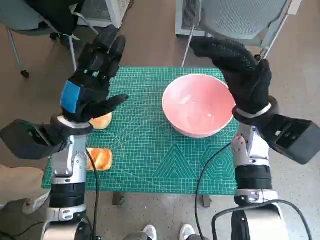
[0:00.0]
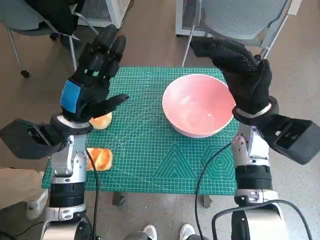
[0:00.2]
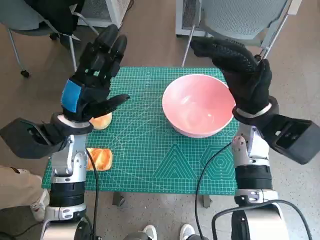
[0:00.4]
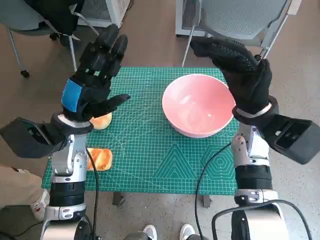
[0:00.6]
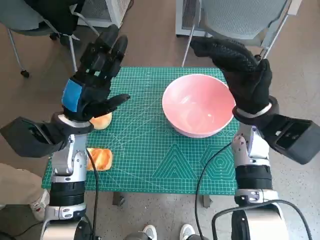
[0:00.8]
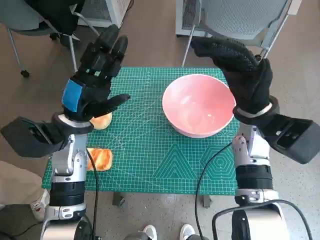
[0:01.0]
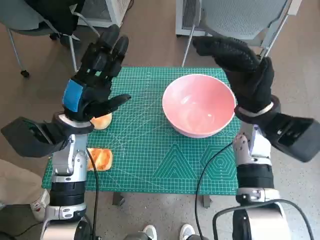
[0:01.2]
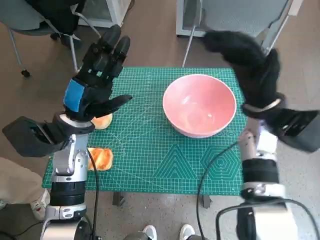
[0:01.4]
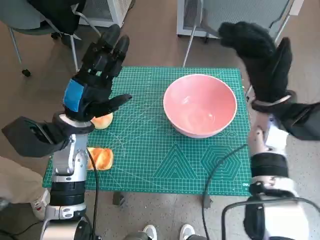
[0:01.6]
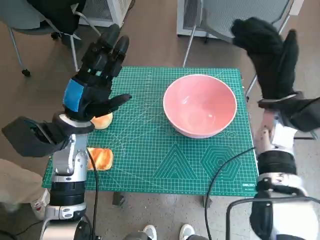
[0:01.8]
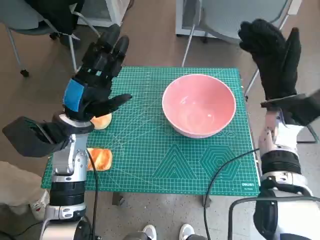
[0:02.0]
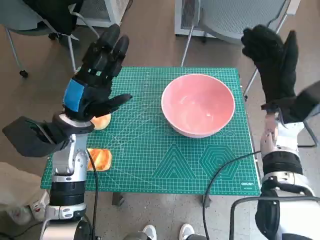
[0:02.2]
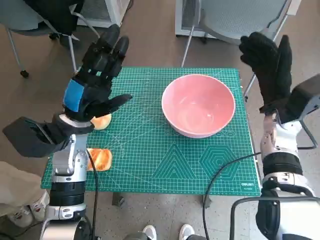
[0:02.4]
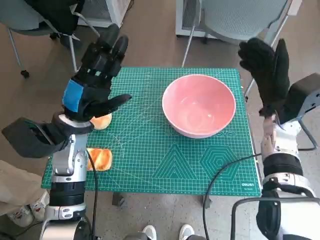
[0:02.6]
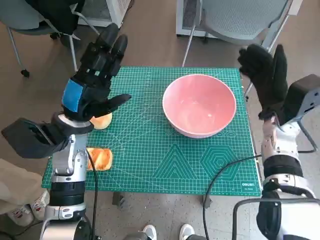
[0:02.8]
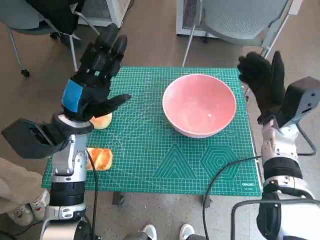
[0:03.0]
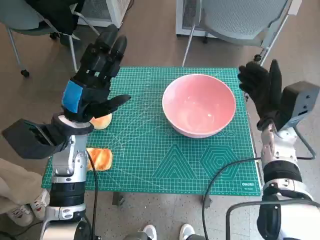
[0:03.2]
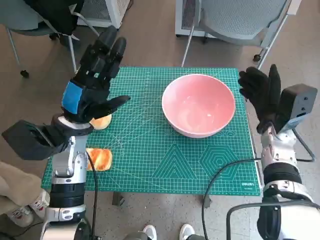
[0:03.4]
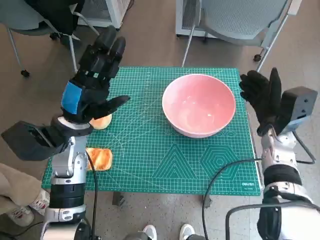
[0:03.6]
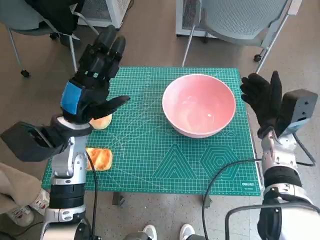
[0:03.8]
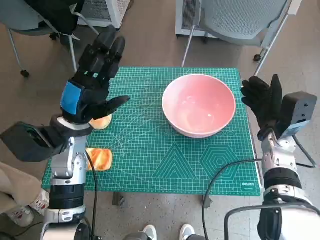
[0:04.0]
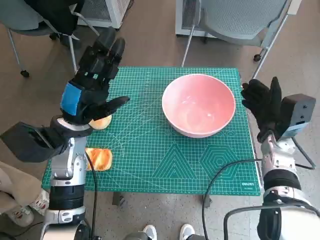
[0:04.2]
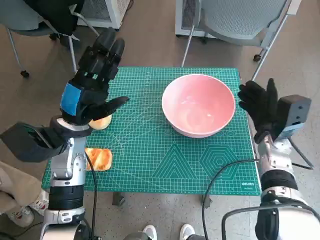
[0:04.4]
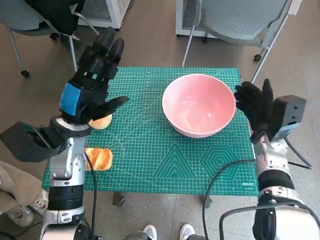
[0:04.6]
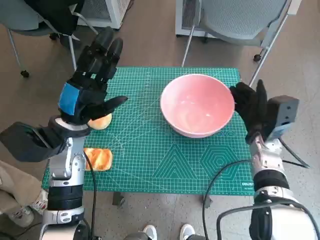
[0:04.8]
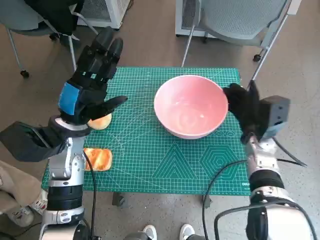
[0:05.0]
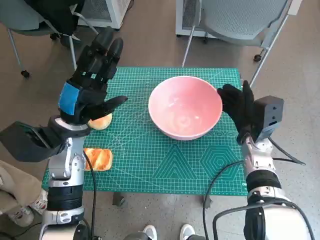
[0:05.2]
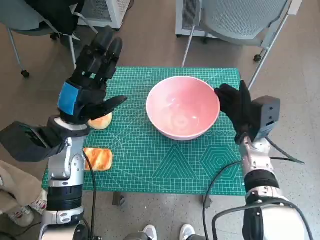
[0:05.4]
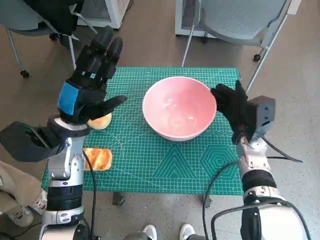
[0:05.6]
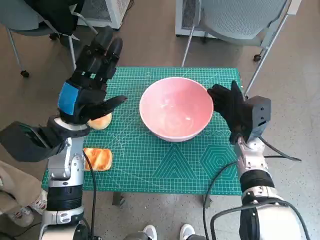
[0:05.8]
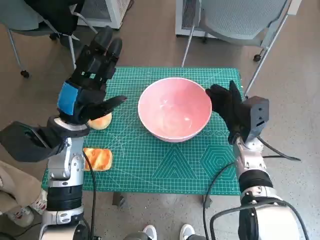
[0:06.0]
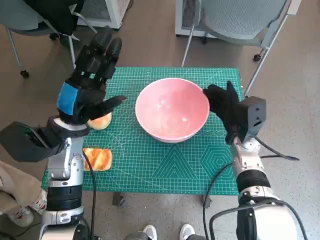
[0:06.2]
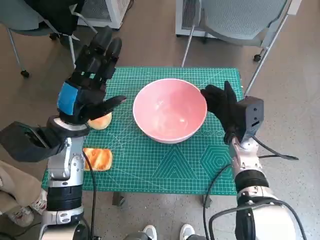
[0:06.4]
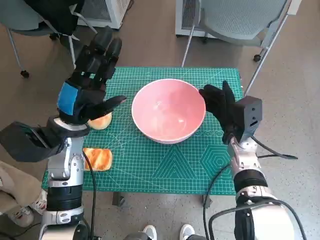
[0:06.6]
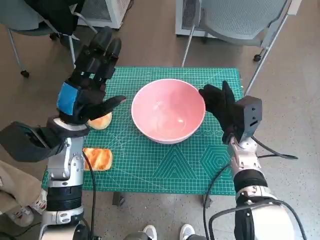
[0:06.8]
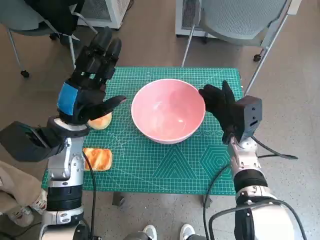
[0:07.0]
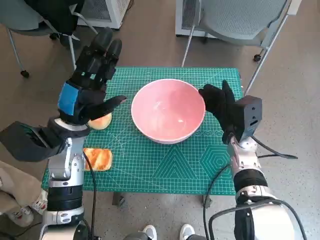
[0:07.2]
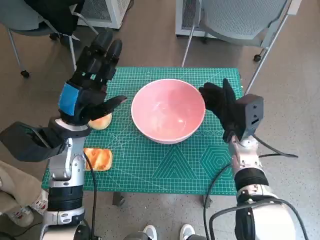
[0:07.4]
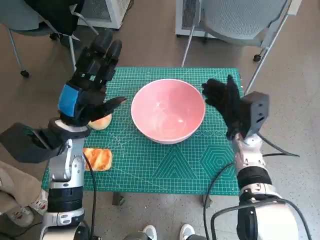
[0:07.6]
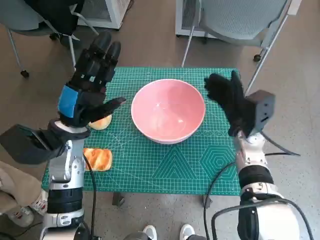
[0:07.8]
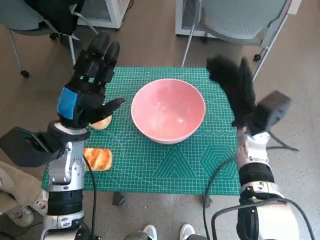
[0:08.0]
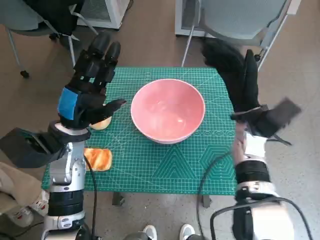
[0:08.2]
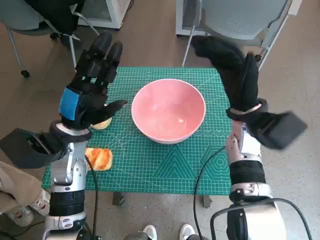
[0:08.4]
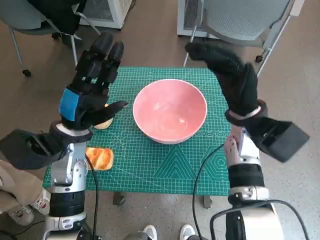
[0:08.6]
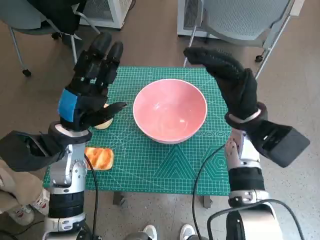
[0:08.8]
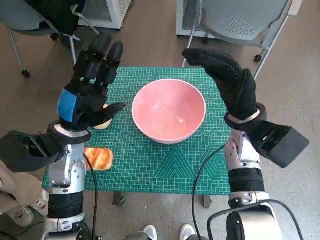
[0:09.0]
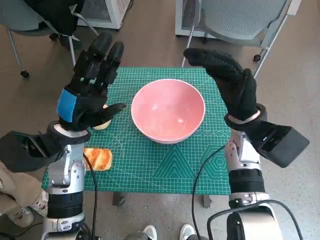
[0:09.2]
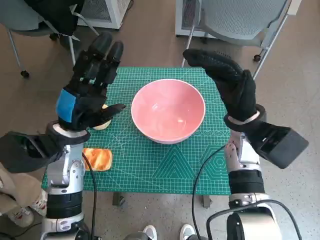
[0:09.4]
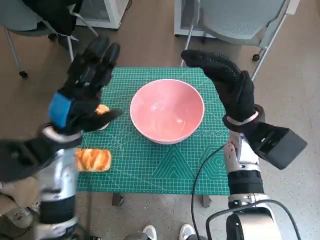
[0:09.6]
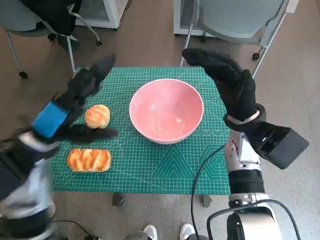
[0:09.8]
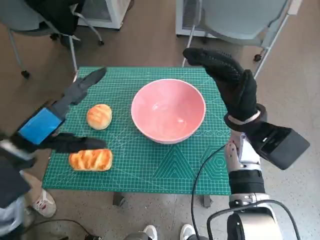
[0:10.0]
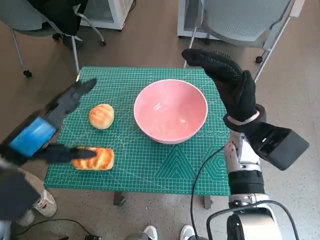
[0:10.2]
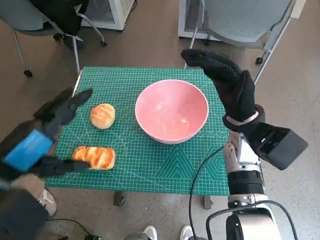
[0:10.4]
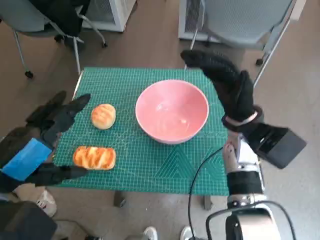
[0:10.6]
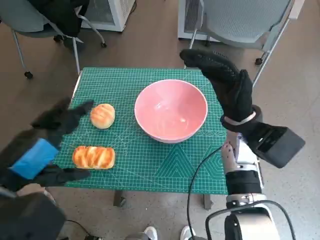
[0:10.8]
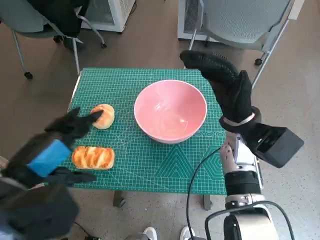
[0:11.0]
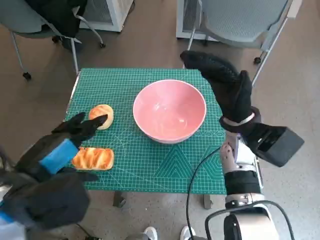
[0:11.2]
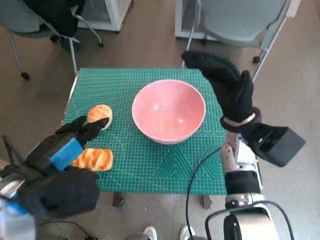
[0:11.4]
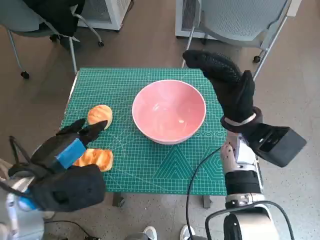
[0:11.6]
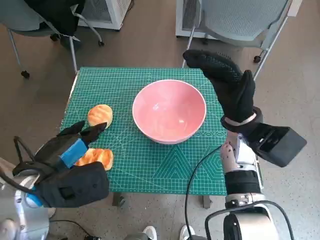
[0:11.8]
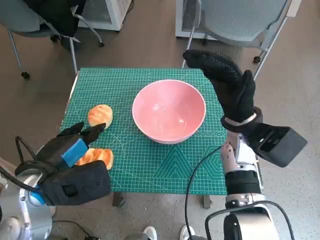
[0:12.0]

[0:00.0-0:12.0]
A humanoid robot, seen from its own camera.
Step, 0:00.0 to 0:07.6: Move the pink bowl to the center of table with right hand.
0:01.6 to 0:03.0: The right hand heads downward, covering some 5 cm.
0:03.0 to 0:04.4: The hands make only small movements.
0:04.4 to 0:06.0: The right hand shifts roughly 5 cm to the left.
0:06.0 to 0:07.6: Both hands stay put.
0:07.6 to 0:09.0: The right hand heads upward, covering approximately 10 cm.
0:09.0 to 0:10.4: The left hand moves backward and upward, some 15 cm.
0:10.4 to 0:12.0: The left hand ends up approximately 5 cm from where it was.

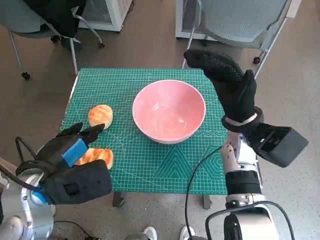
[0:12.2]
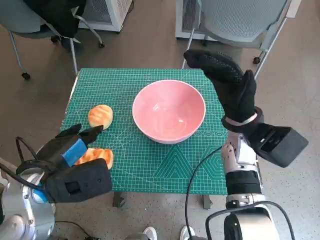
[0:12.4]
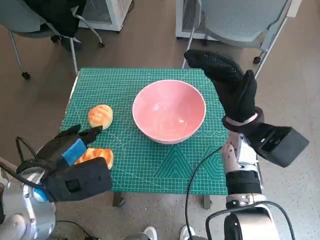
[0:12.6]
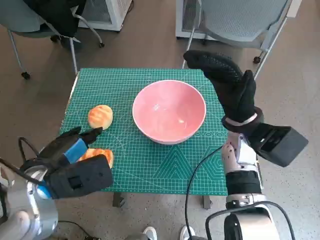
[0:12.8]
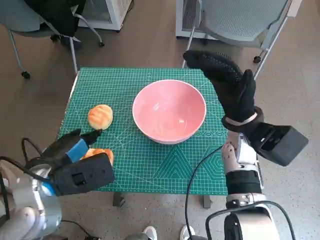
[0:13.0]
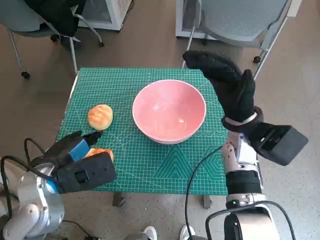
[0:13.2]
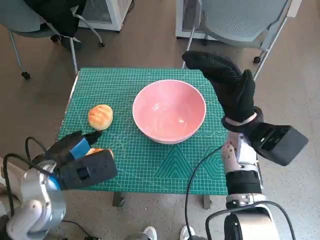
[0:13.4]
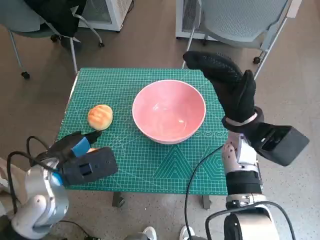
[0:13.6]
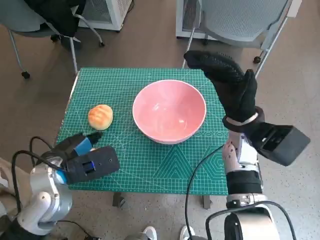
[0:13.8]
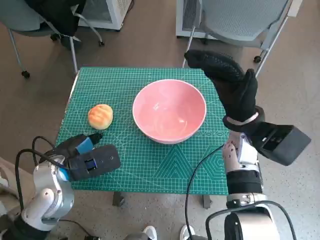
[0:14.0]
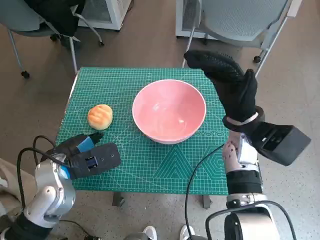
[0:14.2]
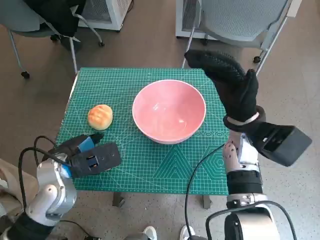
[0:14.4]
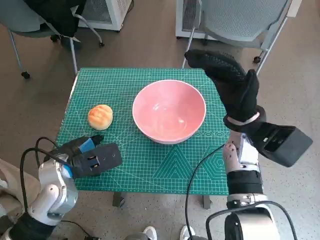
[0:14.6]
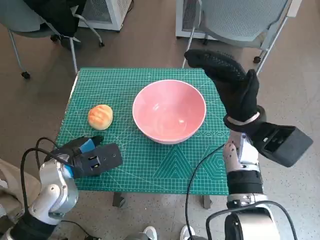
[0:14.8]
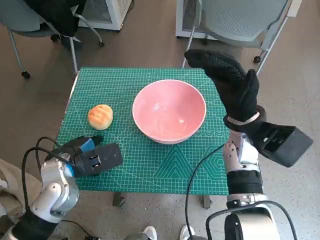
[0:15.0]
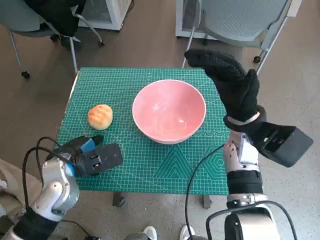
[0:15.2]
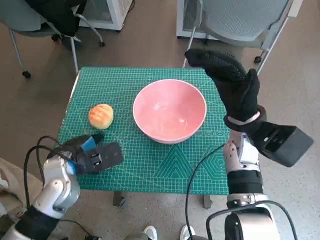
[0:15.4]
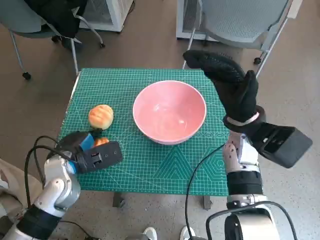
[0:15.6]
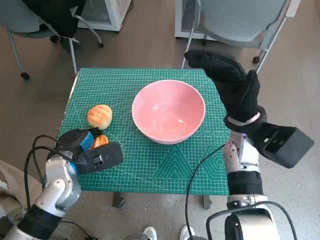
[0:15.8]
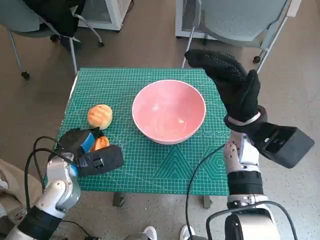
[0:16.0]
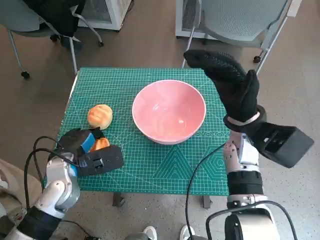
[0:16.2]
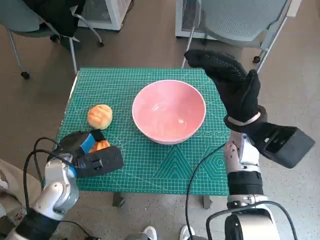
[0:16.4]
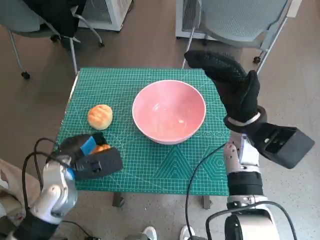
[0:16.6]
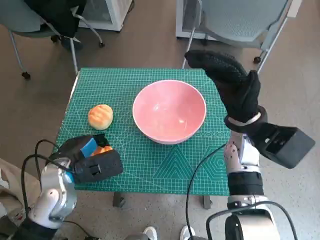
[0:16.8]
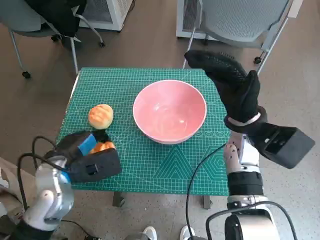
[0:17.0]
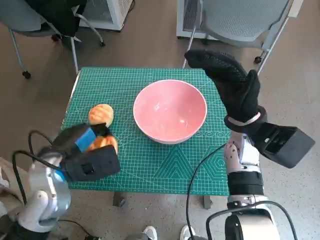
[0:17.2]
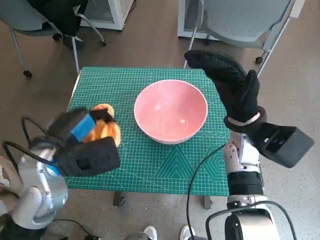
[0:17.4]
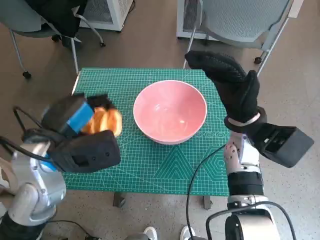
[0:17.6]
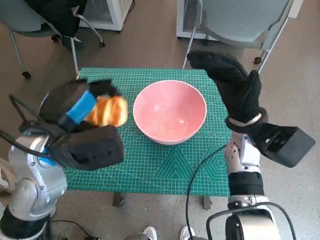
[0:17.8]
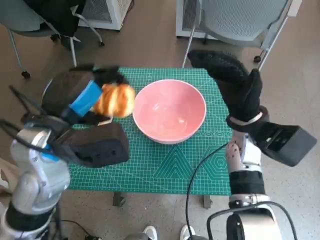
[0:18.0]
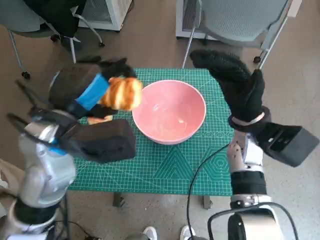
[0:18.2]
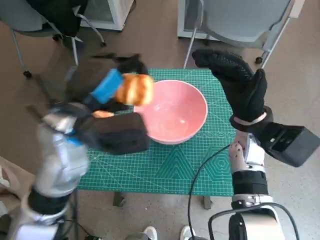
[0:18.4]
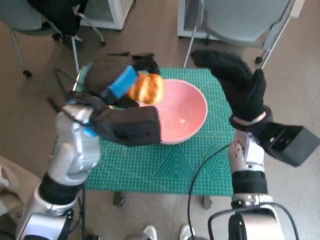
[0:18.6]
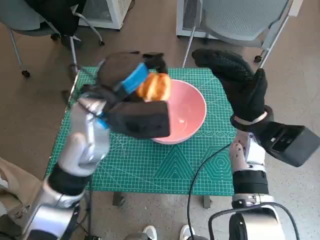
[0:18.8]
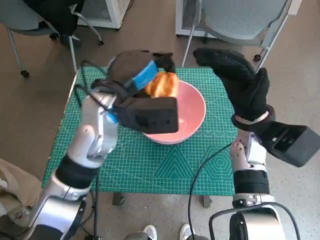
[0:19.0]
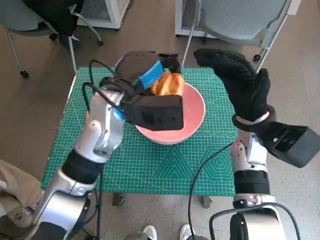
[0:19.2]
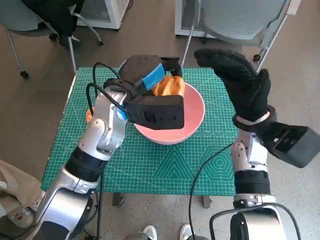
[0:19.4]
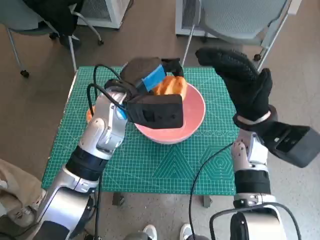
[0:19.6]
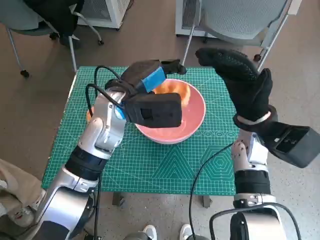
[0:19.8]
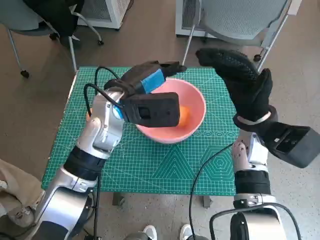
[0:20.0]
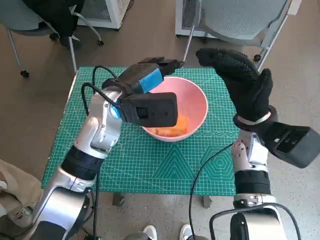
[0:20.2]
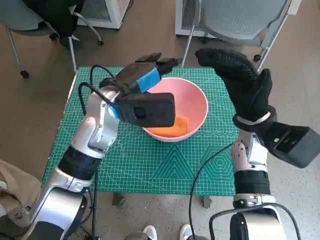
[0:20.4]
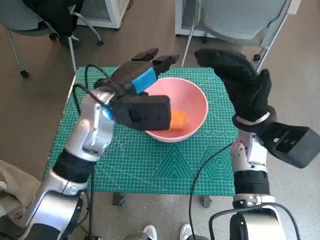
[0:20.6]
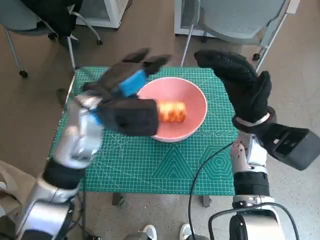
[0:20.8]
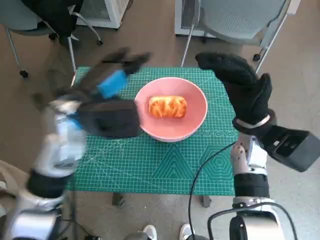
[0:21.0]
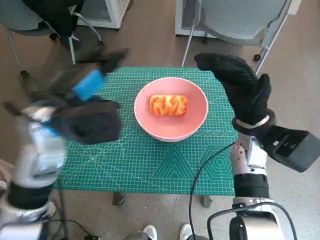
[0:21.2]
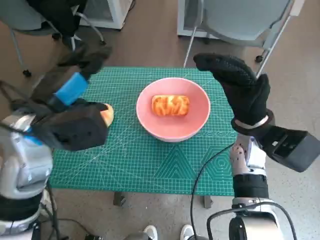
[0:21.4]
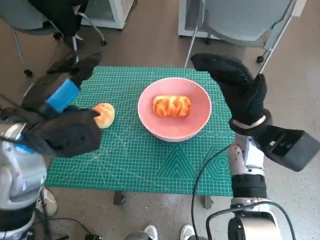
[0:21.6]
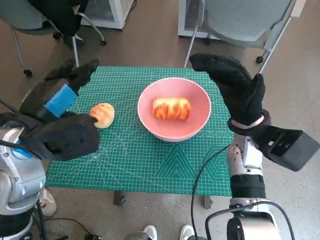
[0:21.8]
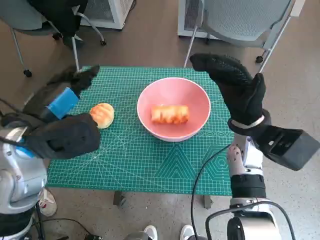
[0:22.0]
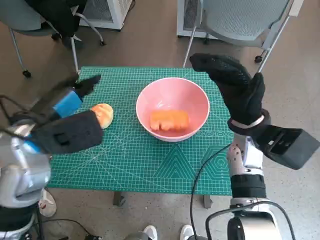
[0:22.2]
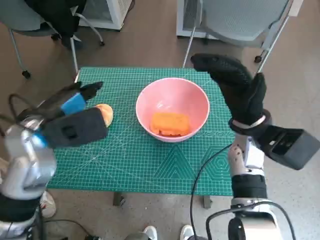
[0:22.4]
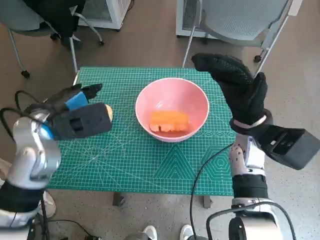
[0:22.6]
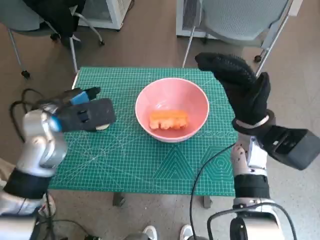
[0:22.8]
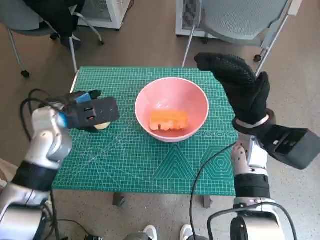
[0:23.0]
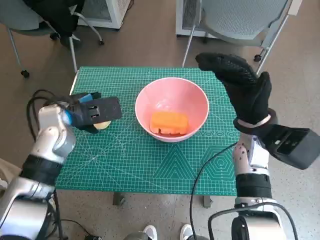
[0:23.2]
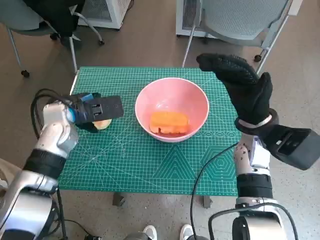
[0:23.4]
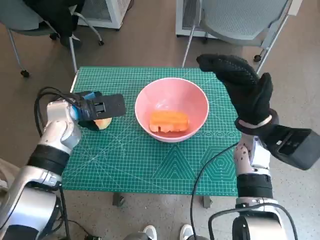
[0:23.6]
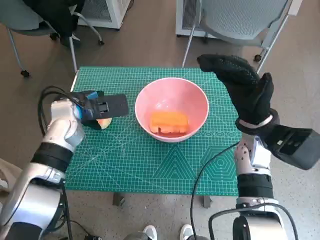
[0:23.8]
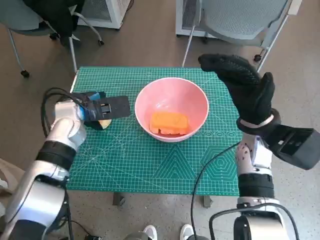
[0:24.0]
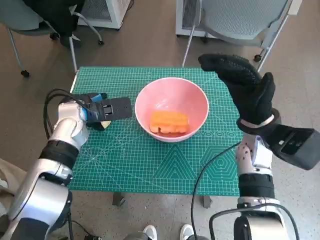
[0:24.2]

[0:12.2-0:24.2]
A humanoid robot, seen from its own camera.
Step, 0:12.2 to 0:15.8: Grasp the long bread with left hand.
Step, 0:16.0 to 0:20.0: Place the long bread in pink bowl with left hand.
0:12.2 to 0:13.8: The left hand moves some 5 cm.
0:13.8 to 0:16.6: There are only small adjustments of the hands.
0:16.6 to 0:18.2: The left hand goes about 15 cm upward.
0:18.2 to 0:19.8: The left hand is displaced forward and to the right by about 10 cm.
0:19.8 to 0:21.2: The left hand is displaced to the left and backward by roughly 10 cm.
0:22.6 to 0:24.2: The left hand shifts roughly 10 cm forward and downward.
